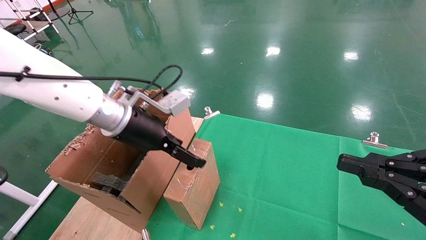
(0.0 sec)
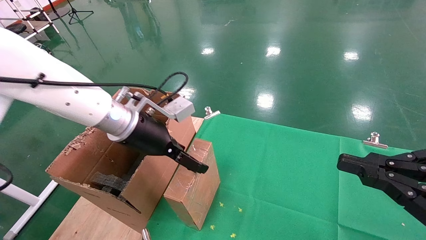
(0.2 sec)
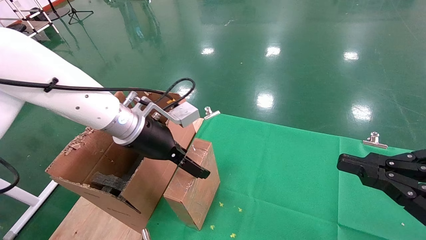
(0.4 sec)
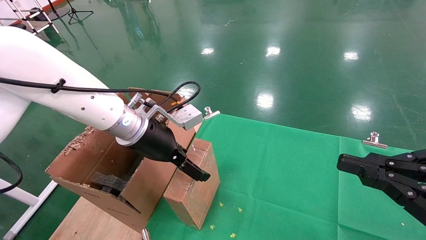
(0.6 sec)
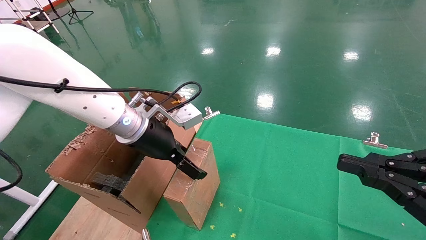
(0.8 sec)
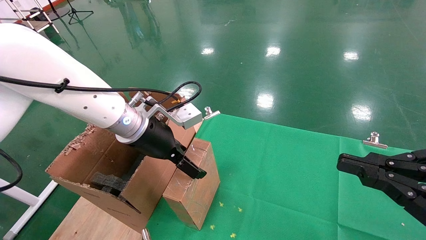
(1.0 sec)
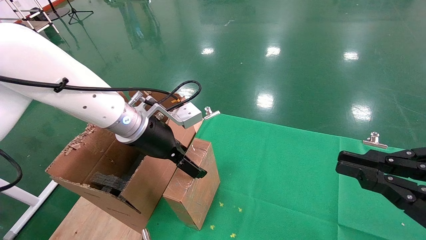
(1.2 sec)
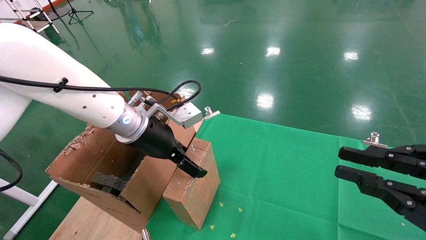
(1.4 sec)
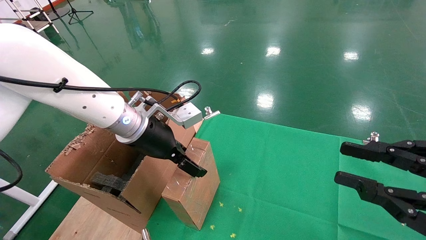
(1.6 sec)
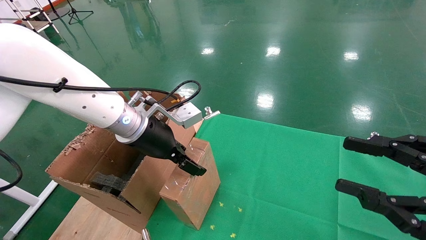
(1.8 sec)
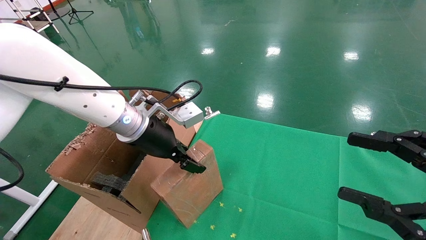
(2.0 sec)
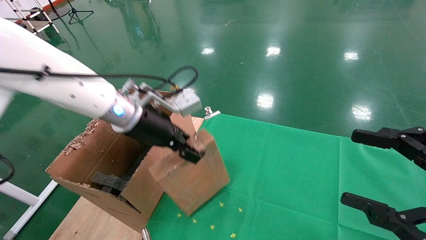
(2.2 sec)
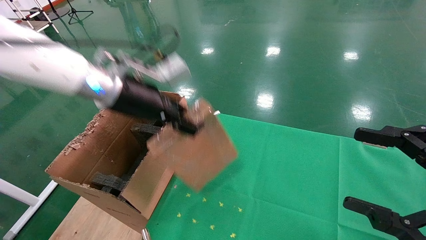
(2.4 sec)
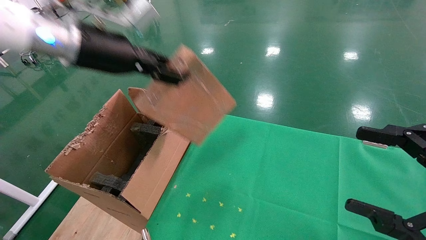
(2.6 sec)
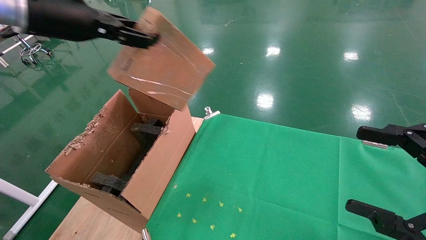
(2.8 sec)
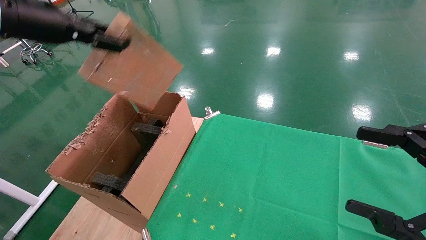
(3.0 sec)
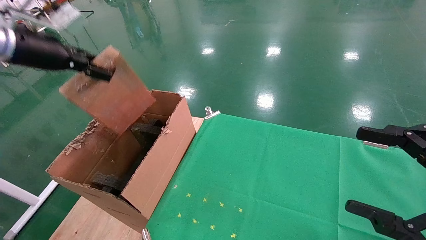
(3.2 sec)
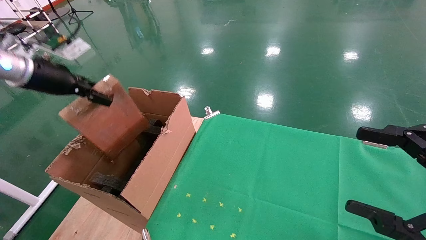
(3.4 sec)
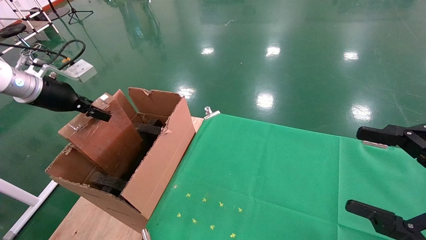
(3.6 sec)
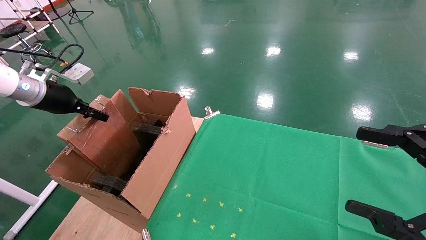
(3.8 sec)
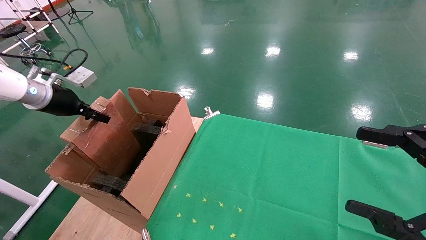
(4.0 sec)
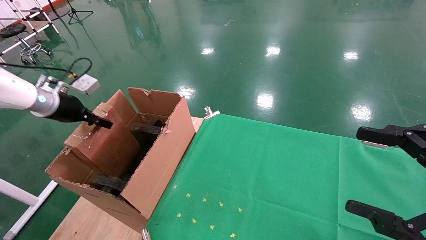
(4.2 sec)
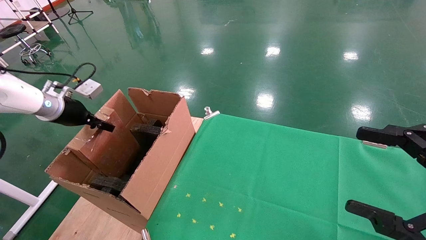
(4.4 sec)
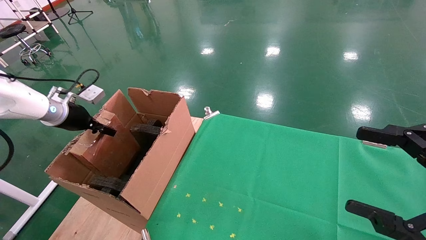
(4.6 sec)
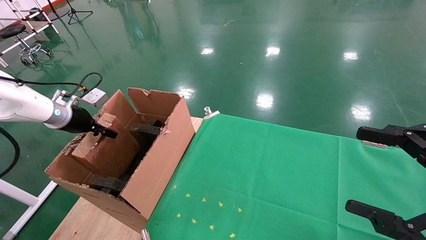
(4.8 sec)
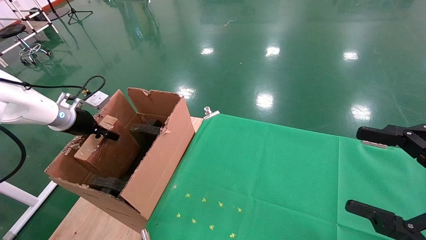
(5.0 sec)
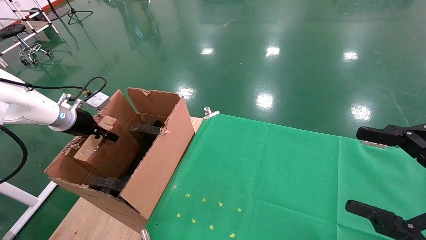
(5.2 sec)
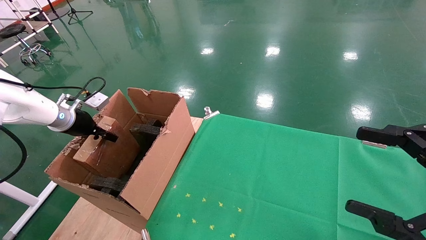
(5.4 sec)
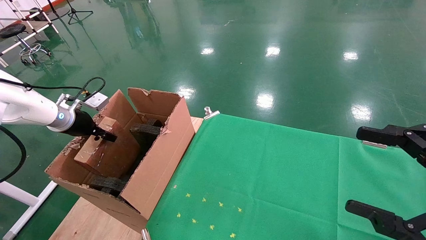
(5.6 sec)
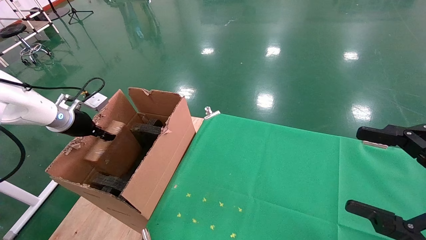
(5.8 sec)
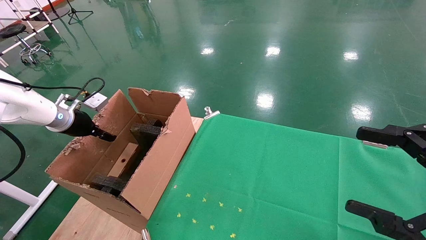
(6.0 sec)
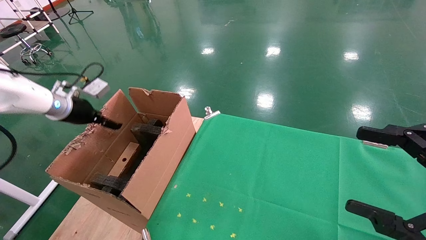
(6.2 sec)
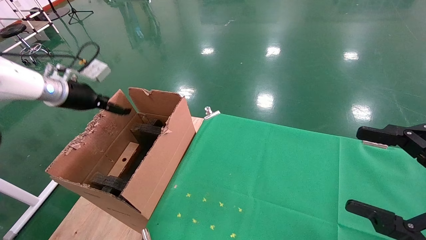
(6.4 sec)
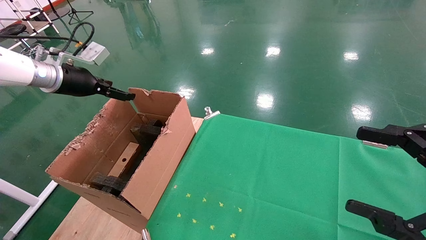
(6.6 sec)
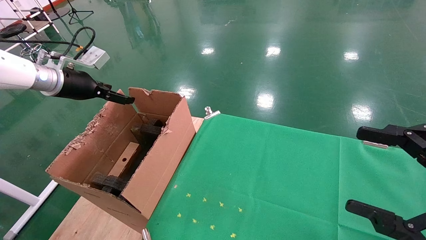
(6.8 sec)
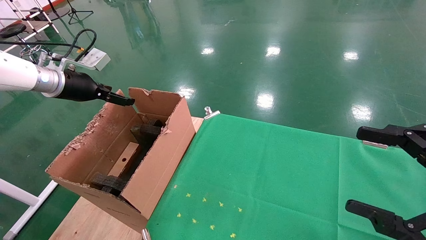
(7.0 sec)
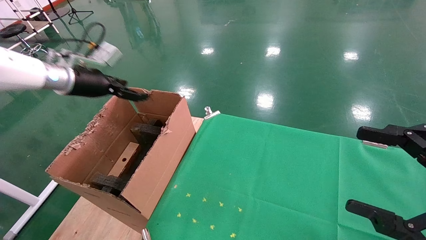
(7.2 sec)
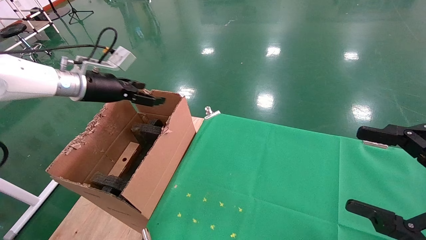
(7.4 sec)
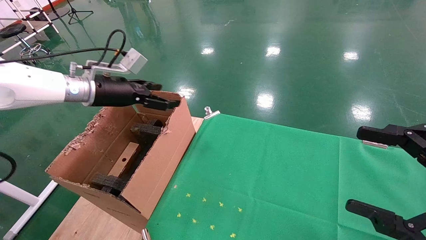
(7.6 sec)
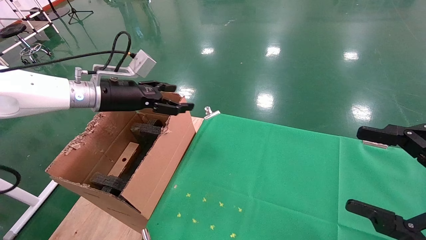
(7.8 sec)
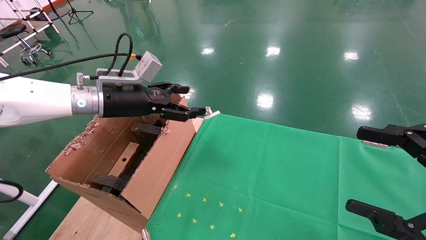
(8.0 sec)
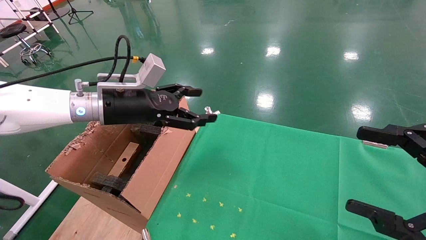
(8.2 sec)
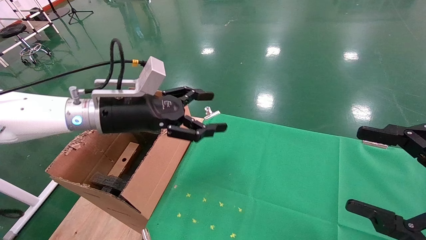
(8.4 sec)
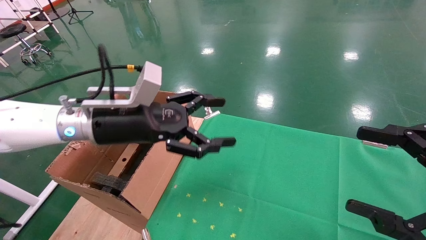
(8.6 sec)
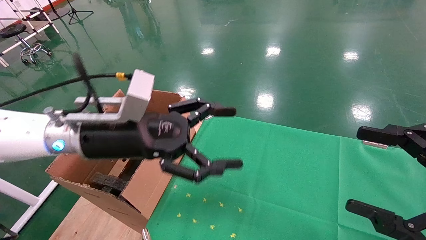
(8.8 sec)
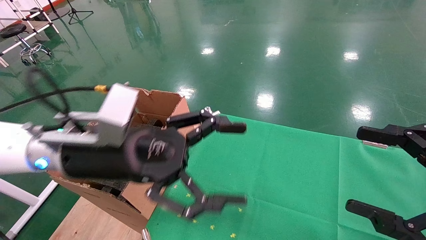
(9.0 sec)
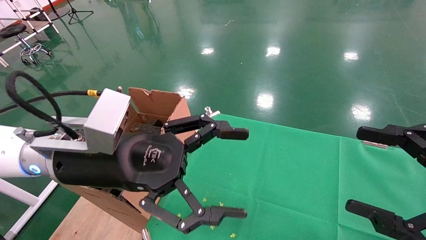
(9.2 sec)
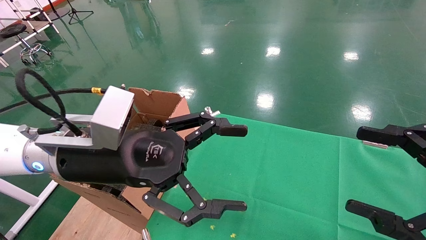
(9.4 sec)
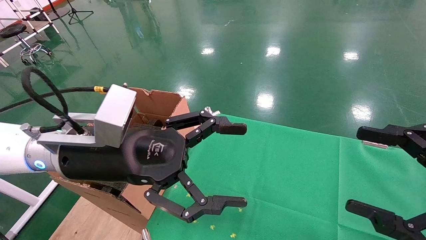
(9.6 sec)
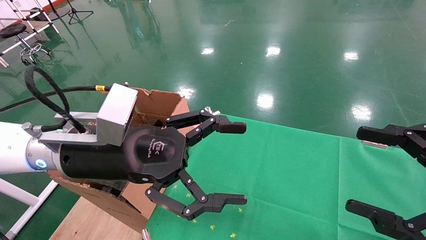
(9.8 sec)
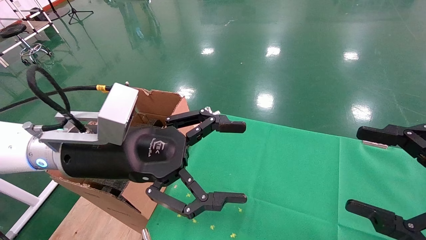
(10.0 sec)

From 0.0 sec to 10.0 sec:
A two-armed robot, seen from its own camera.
Task of the whole recording: using a robotic arm to pick up a cardboard box and palace it the carton.
Step, from 0.0 sec to 2.0 sec: Pick up the mouse and the power cord paper box.
Step, from 2.2 sec to 6.4 sec: Place the mouse and the power cord paper box into the container.
From 0.0 sec to 1.4 sec: The grippers move only a little.
From 1.4 sec to 2.8 sec: The left gripper travels upward and to the left by roughly 25 cm, and closes its fingers, while the right gripper opens.
From 2.8 sec to 4.2 sec: The left gripper goes about 25 cm downward, to the left and forward.
From 4.2 sec to 5.8 sec: The left gripper moves about 5 cm.
From 5.8 sec to 7.2 sec: The left gripper goes roughly 10 cm upward and to the right, and opens.
From 7.2 sec to 8.6 sec: The left gripper goes approximately 20 cm to the right and backward.
From 8.6 sec to 10.0 sec: The left gripper heads backward, covering roughly 5 cm.

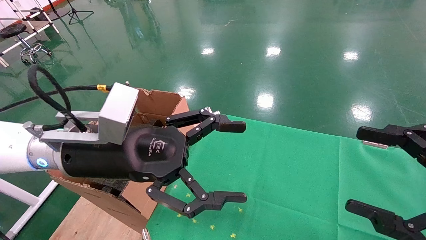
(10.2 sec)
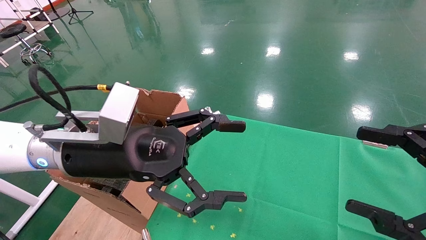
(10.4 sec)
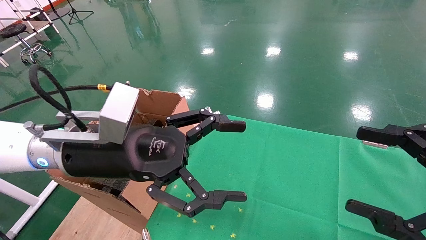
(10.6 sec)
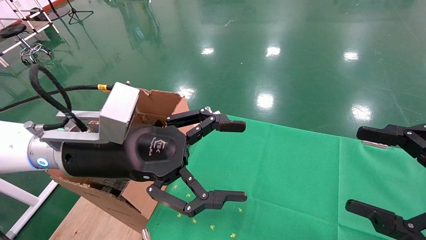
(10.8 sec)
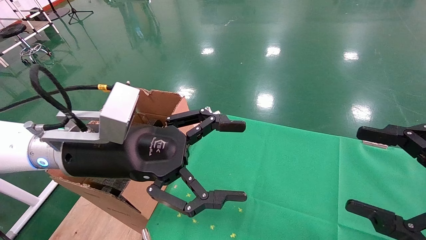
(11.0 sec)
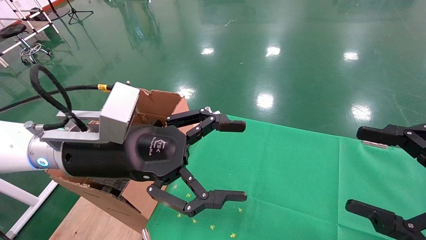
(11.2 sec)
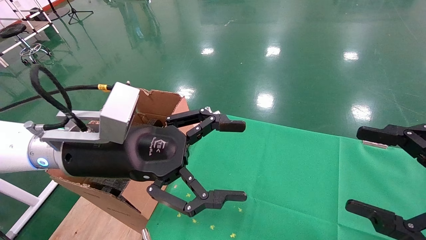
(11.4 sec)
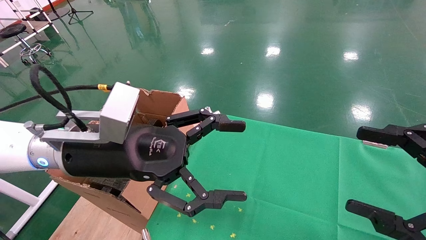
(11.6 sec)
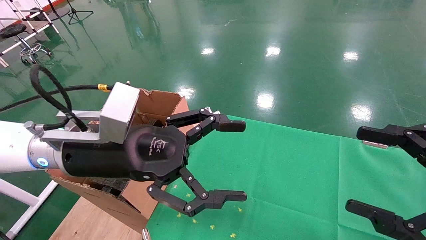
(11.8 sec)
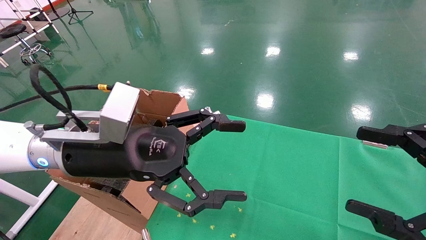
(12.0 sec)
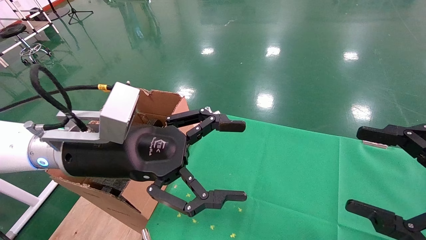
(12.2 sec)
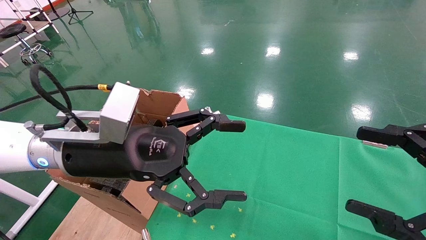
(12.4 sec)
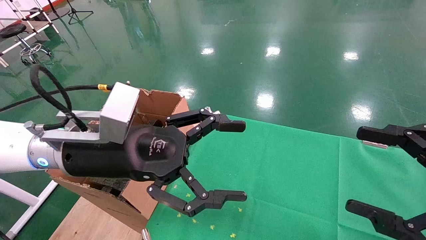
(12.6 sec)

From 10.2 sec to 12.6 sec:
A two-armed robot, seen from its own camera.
Task of the whole recording: using a robotic arm to pick up a cardboard box and palace it the carton.
From 10.2 sec to 12.6 sec: Neither gripper changes place.
